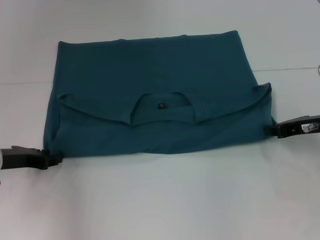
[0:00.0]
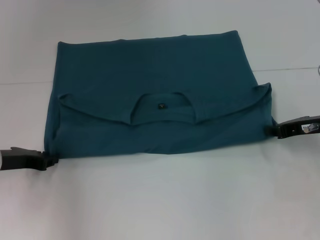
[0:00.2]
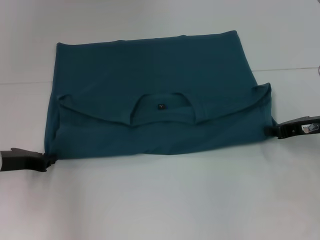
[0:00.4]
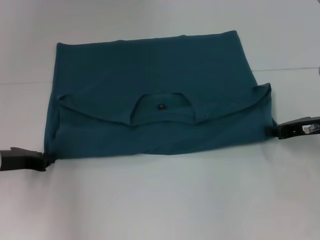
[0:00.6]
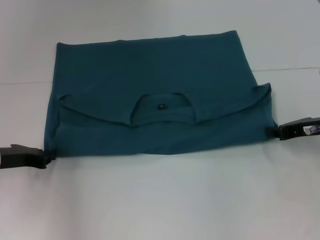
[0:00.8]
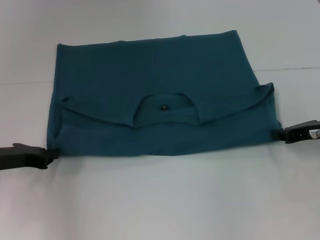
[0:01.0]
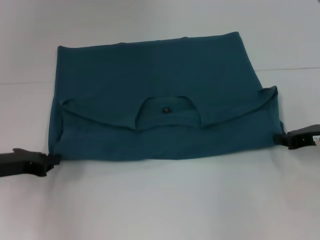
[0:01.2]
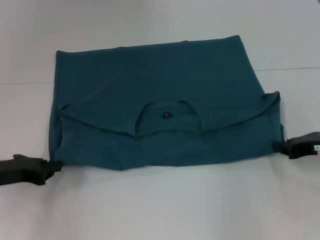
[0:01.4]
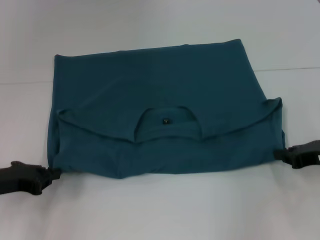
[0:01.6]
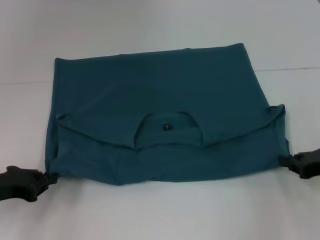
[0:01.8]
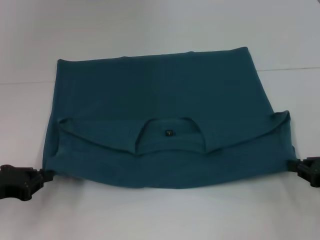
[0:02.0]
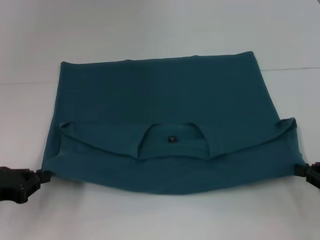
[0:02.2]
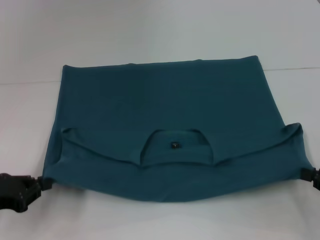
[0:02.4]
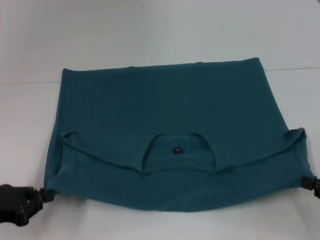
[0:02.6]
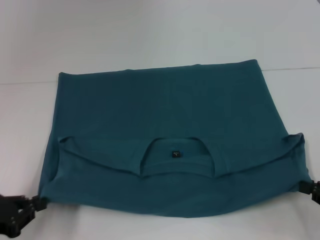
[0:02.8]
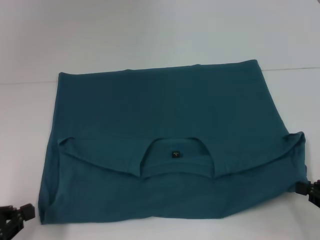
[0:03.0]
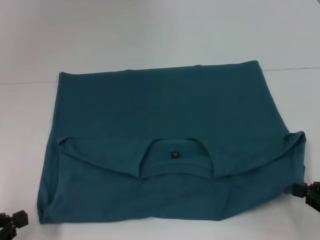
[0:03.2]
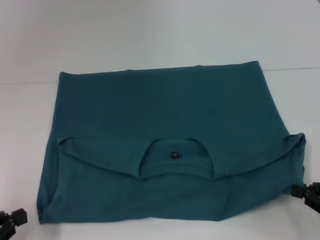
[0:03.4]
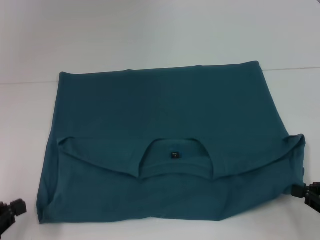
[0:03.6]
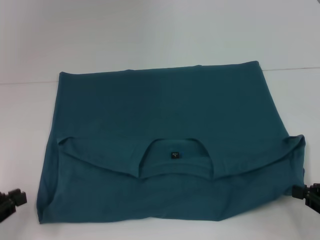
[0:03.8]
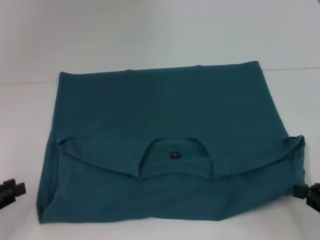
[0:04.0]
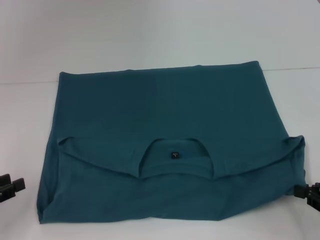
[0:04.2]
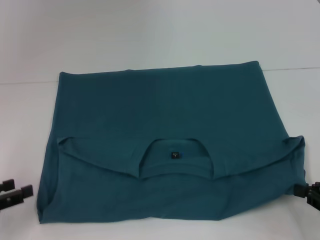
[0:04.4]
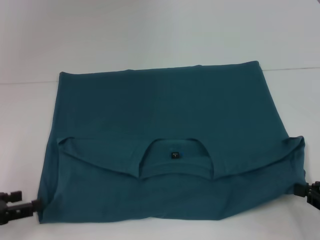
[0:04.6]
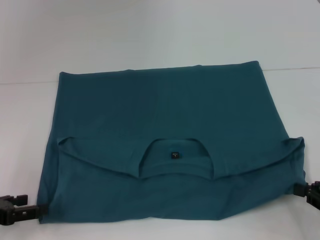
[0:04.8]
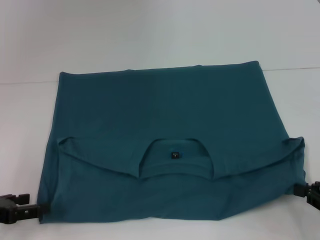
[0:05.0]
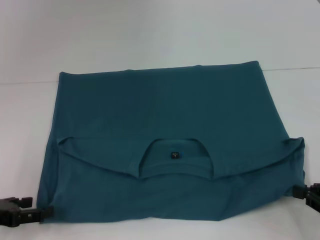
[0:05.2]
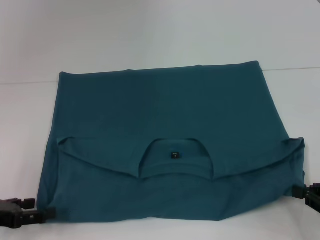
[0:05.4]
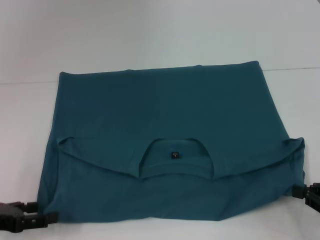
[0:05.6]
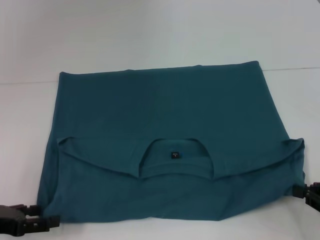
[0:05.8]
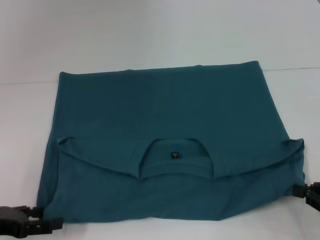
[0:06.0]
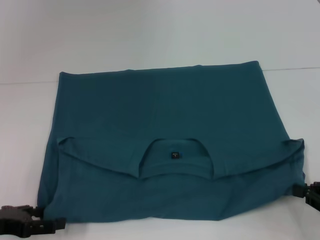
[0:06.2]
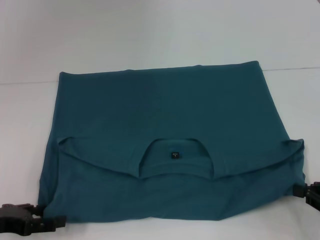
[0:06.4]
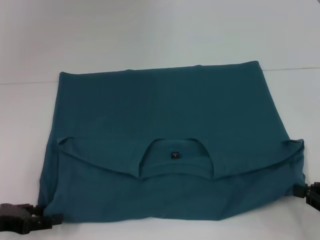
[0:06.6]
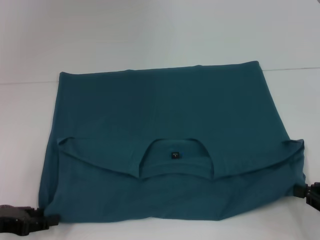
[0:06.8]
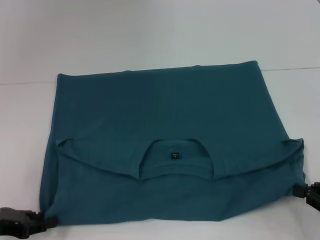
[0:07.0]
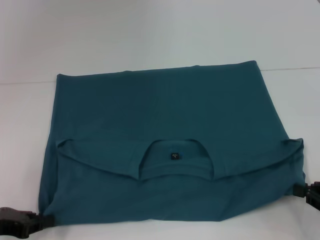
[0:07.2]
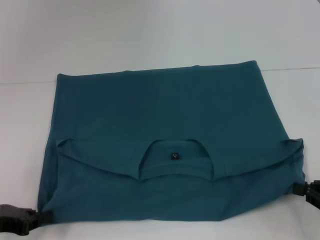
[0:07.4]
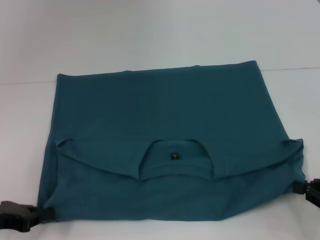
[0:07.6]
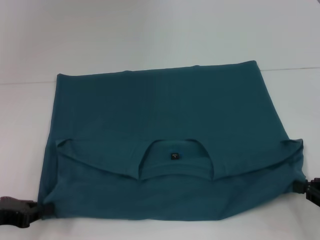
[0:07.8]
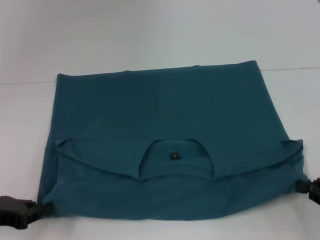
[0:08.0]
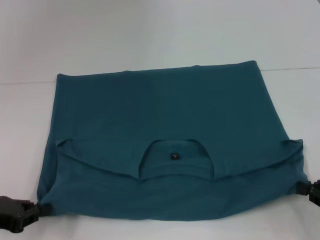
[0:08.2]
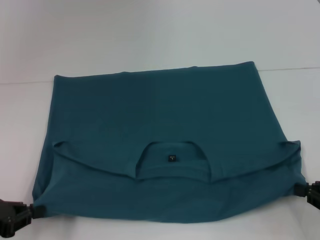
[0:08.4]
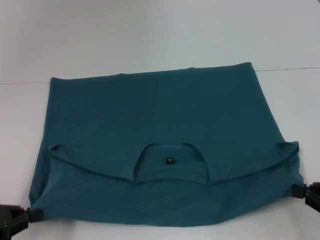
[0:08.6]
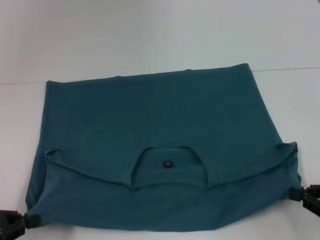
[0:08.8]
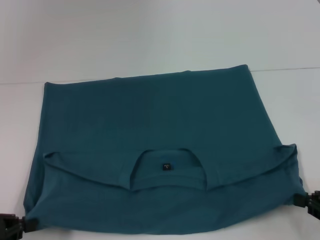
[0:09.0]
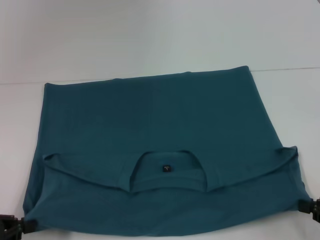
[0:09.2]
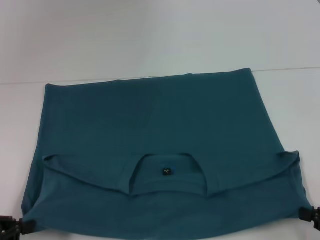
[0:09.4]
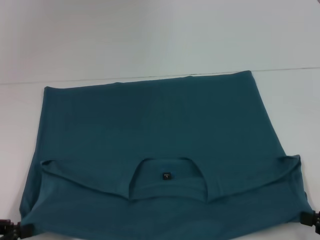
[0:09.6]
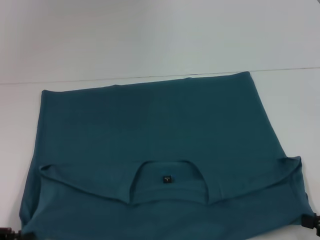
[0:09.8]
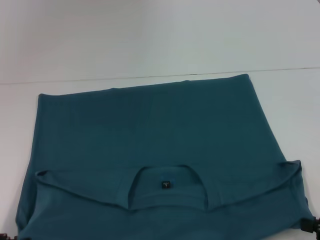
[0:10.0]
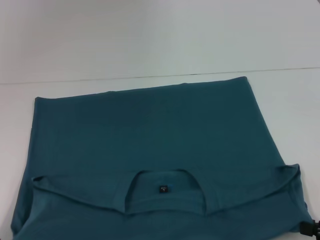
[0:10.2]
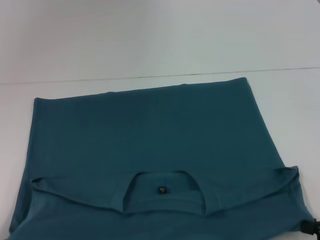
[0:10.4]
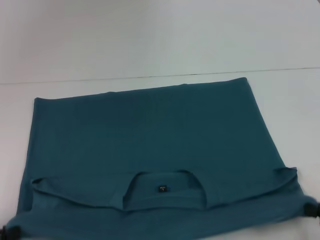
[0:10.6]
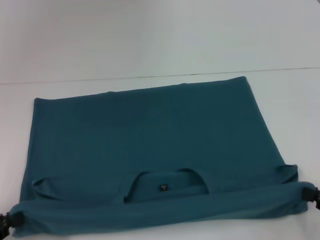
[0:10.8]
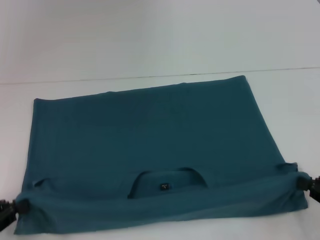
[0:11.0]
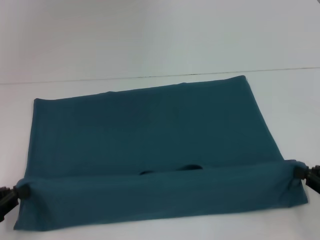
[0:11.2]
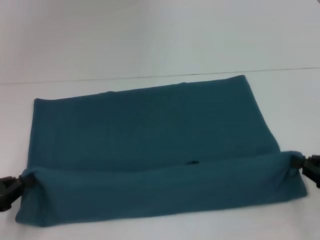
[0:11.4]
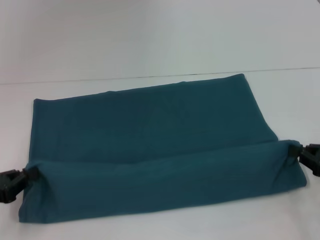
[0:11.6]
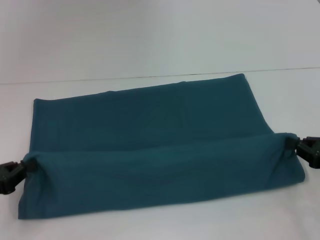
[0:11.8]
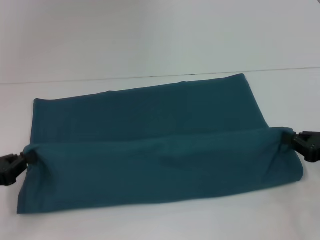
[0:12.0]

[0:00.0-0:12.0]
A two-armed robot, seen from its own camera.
Step, 0:00.0 to 0:10.2: Pull the clothes with your left hand.
Step, 0:00.0 to 0:10.2: Pull the clothes with your right hand.
0:00.0 to 0:01.6: The left gripper shifts by roughly 5 cm, and closes its fingers; the right gripper heads backward, covering approximately 5 cm.
0:01.6 to 0:03.0: The grippers both shift backward by some 10 cm.
0:03.0 to 0:04.4: The left gripper opens up.
0:04.4 to 0:06.0: The left gripper opens its fingers.
0:06.0 to 0:07.6: The left gripper closes its fingers.
0:07.6 to 0:09.0: The left gripper changes place by some 5 cm.
0:09.0 to 0:10.4: The left gripper shifts roughly 5 cm backward.
0:10.4 to 0:12.0: Both grippers move forward, some 10 cm.

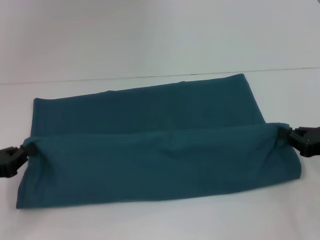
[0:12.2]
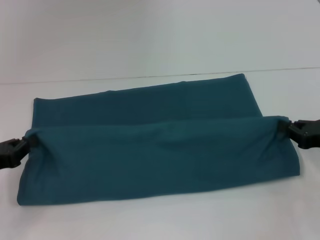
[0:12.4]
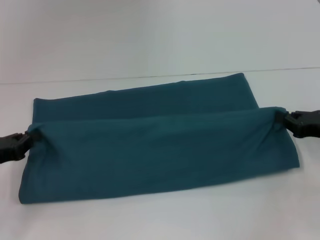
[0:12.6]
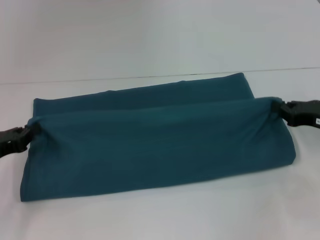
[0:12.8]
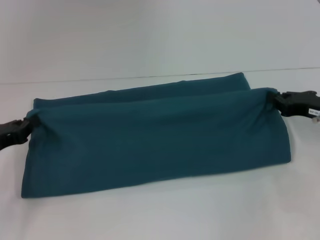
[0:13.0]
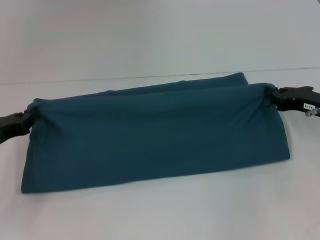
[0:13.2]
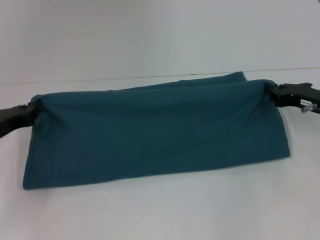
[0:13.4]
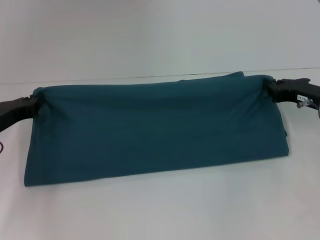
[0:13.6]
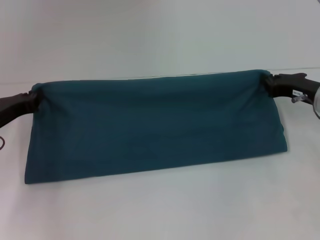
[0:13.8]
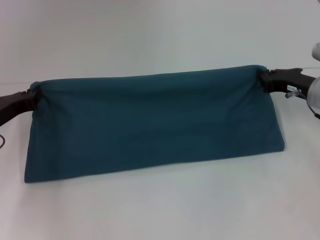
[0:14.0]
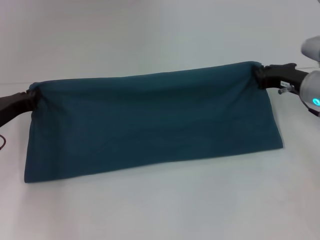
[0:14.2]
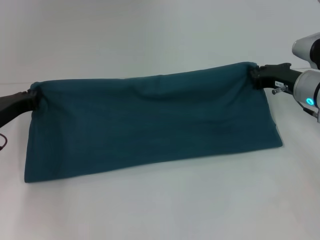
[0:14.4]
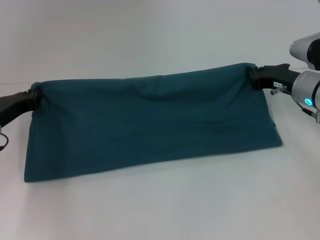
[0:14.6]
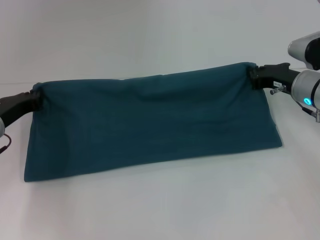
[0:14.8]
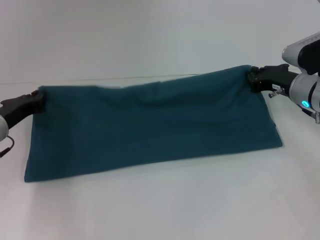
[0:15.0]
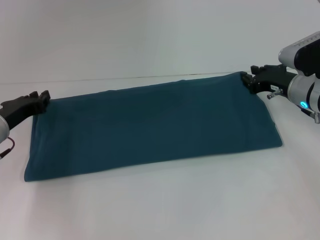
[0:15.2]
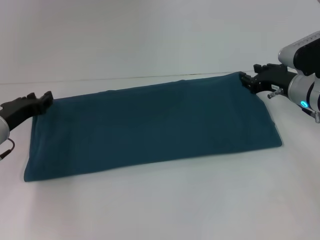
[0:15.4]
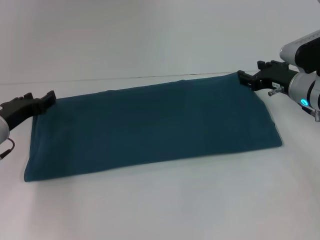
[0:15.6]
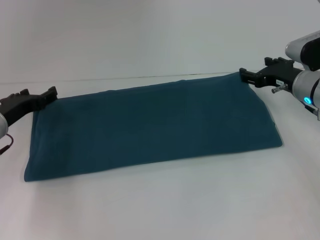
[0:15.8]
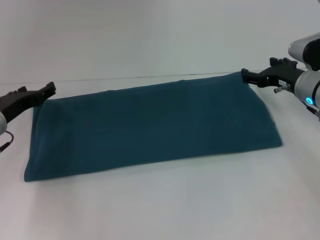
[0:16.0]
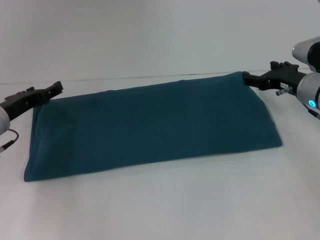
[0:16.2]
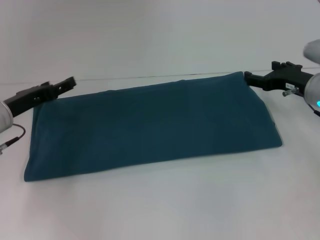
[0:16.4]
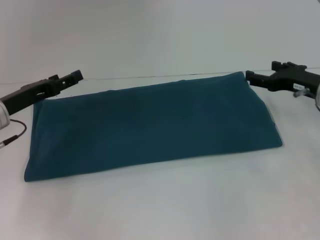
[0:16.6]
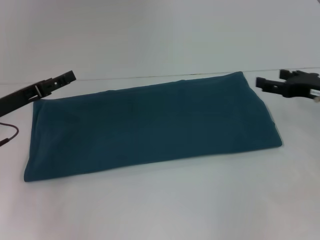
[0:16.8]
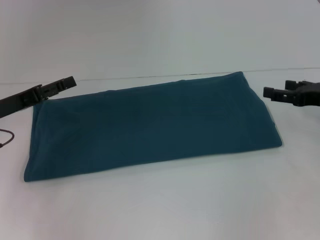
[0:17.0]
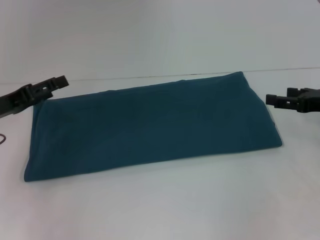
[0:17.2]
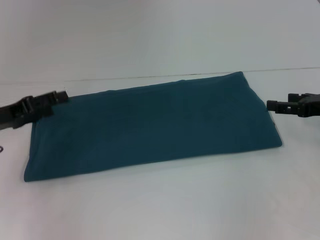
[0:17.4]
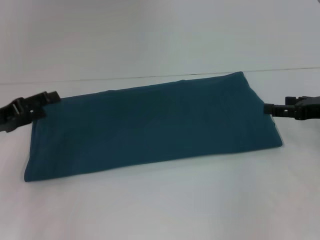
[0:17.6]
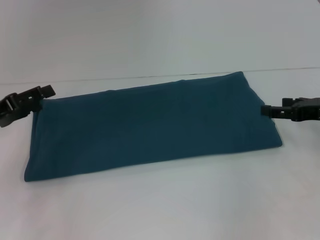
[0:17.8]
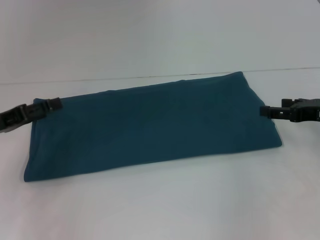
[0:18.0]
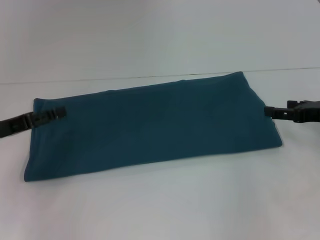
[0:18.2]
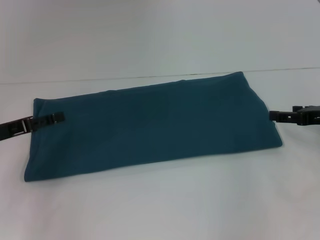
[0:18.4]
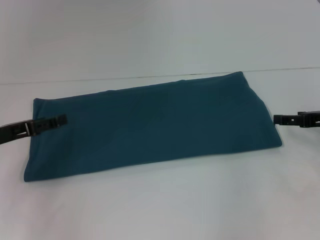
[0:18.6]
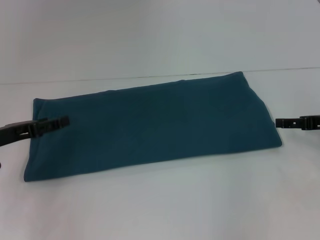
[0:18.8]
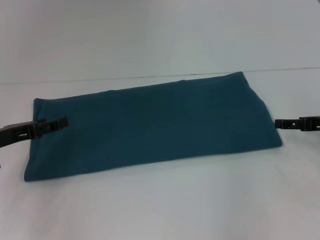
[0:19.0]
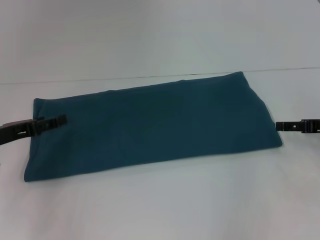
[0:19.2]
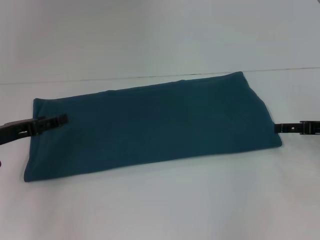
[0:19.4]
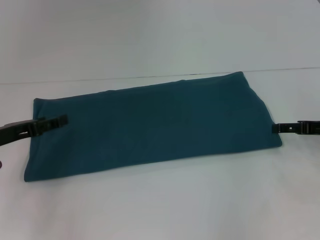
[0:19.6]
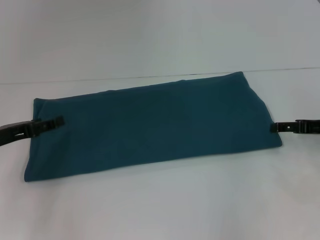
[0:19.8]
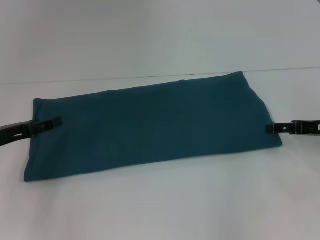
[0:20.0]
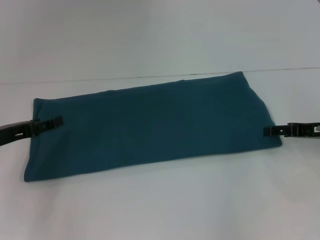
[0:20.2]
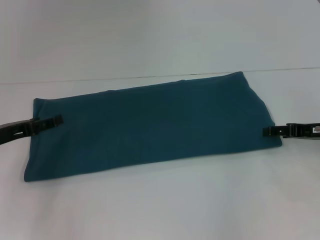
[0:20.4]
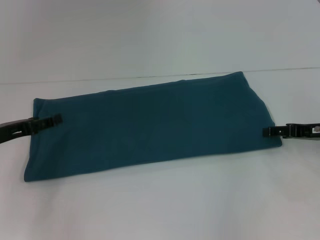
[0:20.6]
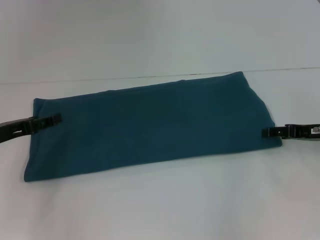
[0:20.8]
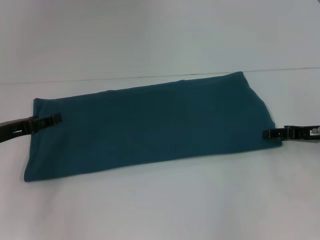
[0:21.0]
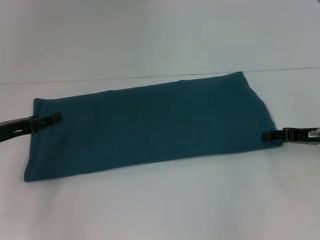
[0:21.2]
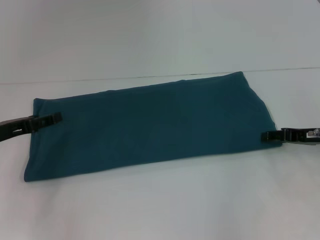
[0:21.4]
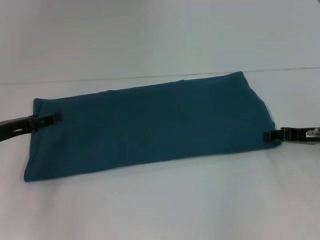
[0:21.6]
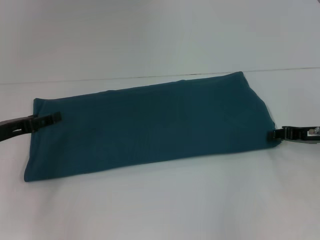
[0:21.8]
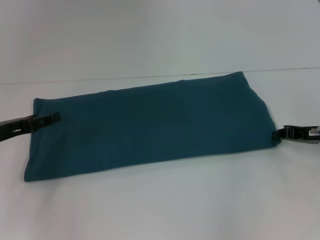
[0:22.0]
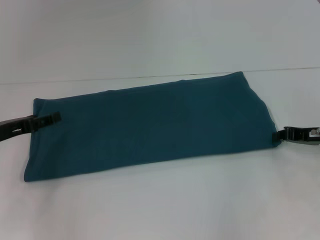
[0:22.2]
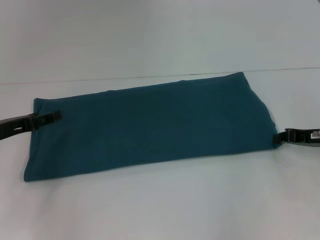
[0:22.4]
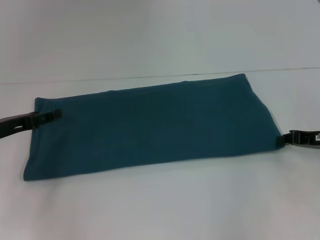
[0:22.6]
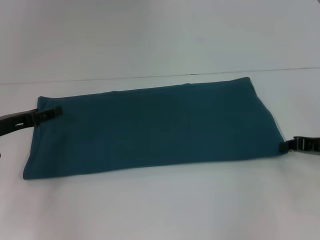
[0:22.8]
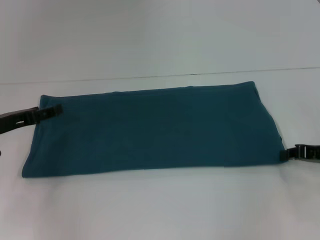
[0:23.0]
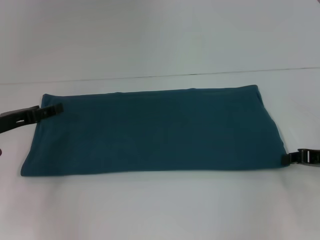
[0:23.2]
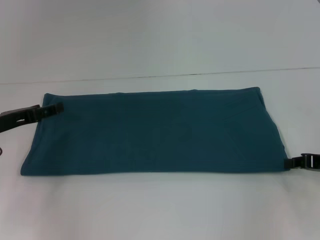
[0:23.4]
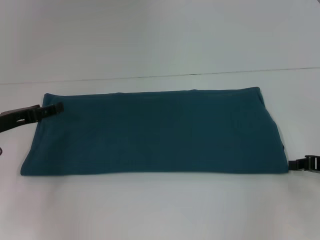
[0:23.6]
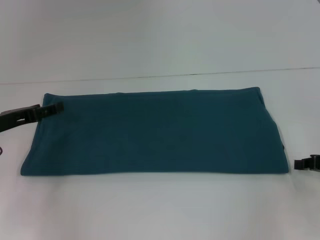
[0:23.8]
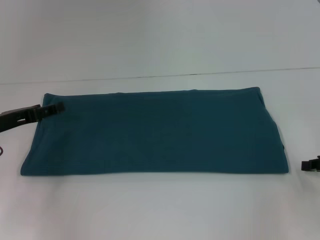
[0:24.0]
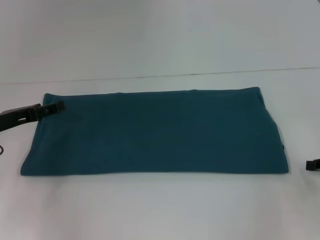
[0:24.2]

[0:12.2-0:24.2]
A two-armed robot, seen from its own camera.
Step, 0:12.2 to 0:15.6: Fold the clothes to the right.
0:12.2 to 0:13.8: The two grippers go roughly 10 cm forward.
0:13.8 to 0:15.2: The grippers move only a little.
0:15.2 to 0:16.6: The right gripper opens its fingers, while the left gripper opens its fingers.
0:16.6 to 0:18.2: The left gripper moves some 5 cm. Meanwhile the right gripper changes place by some 5 cm.
0:18.2 to 0:19.8: There are only small adjustments of the grippers.
0:19.8 to 0:21.2: The grippers stay close to where they were, moving slightly.
0:21.2 to 0:22.6: The right gripper closes its fingers.
0:22.6 to 0:24.2: The right gripper goes approximately 5 cm backward.
